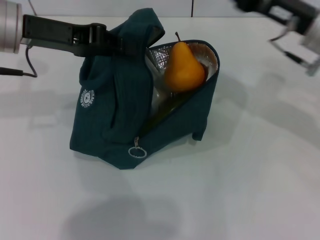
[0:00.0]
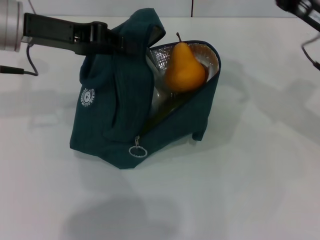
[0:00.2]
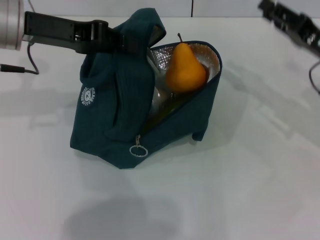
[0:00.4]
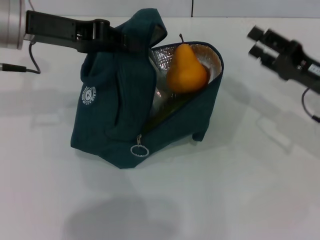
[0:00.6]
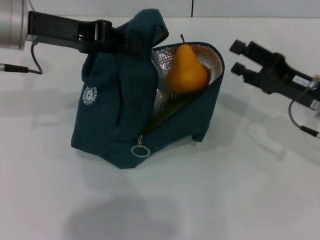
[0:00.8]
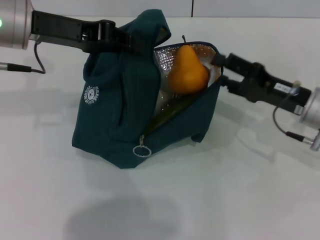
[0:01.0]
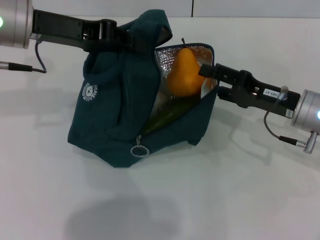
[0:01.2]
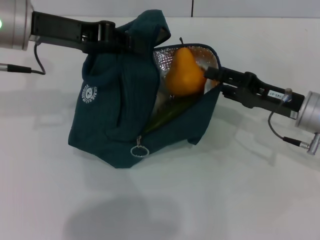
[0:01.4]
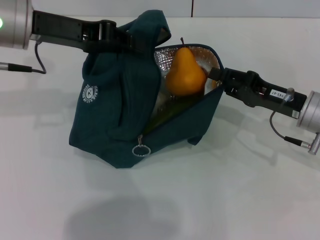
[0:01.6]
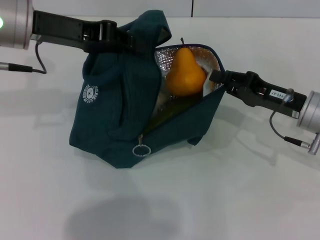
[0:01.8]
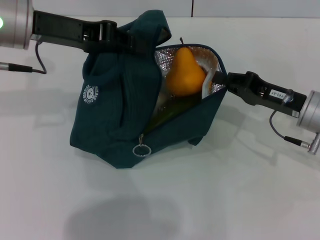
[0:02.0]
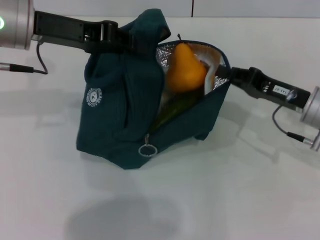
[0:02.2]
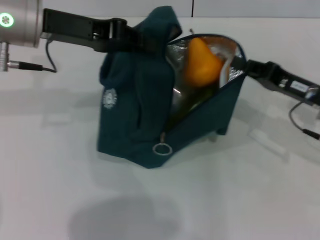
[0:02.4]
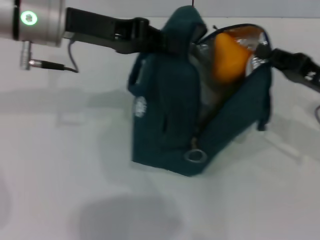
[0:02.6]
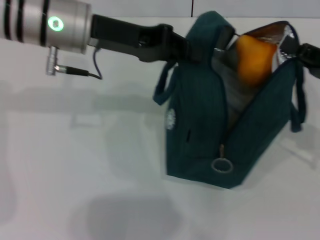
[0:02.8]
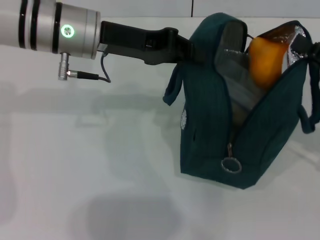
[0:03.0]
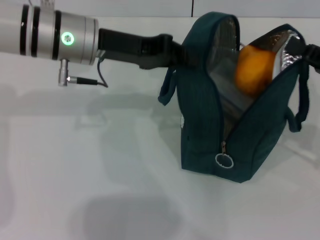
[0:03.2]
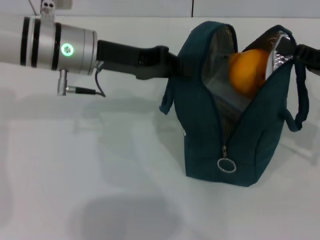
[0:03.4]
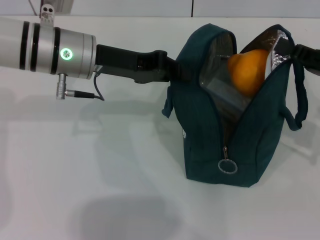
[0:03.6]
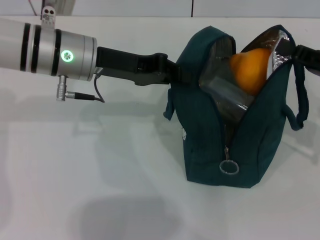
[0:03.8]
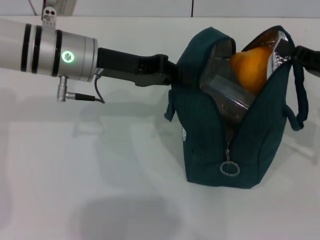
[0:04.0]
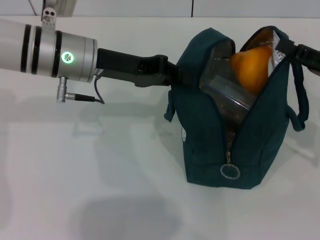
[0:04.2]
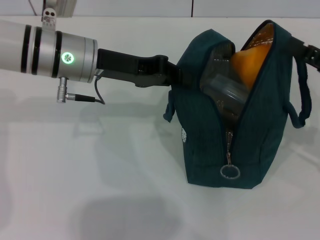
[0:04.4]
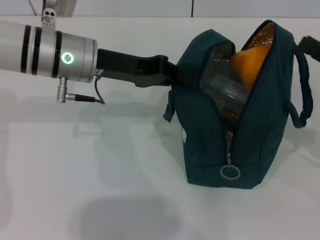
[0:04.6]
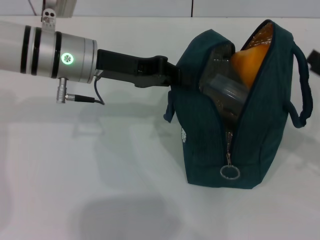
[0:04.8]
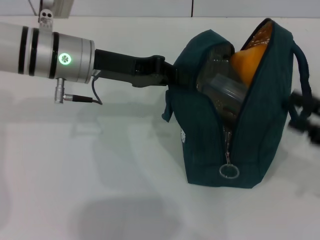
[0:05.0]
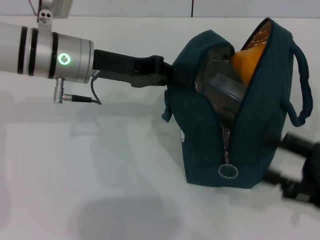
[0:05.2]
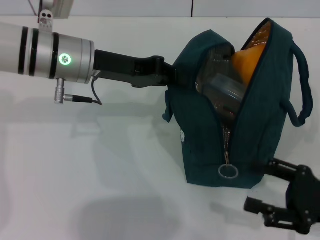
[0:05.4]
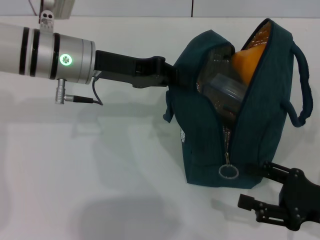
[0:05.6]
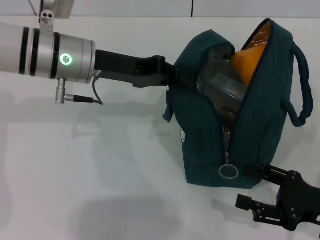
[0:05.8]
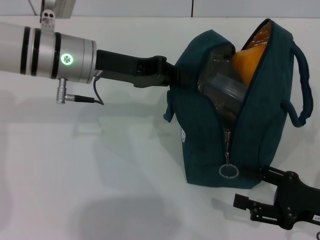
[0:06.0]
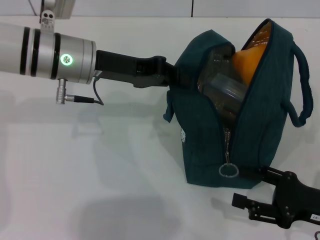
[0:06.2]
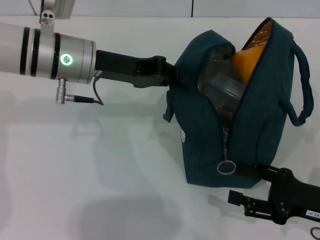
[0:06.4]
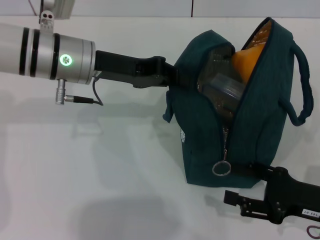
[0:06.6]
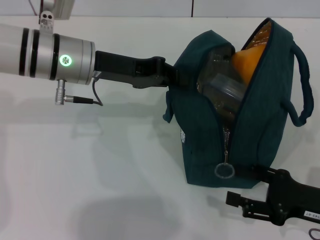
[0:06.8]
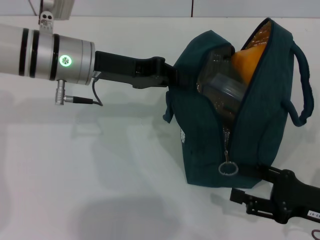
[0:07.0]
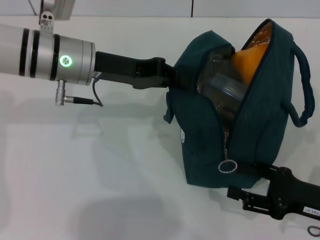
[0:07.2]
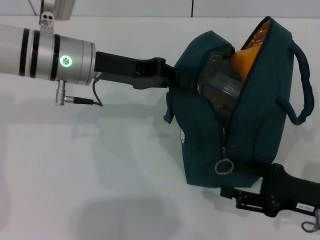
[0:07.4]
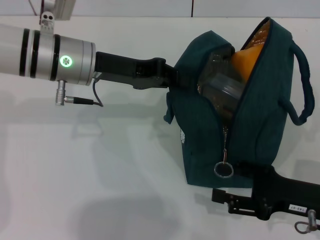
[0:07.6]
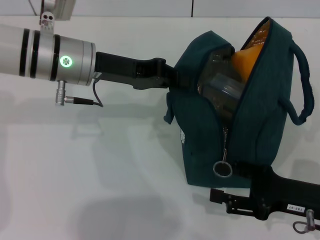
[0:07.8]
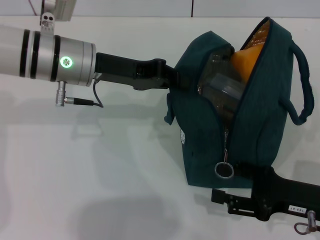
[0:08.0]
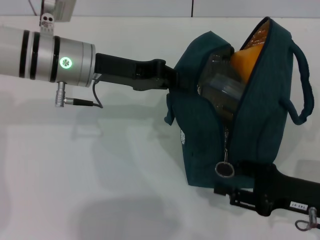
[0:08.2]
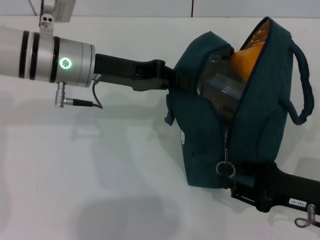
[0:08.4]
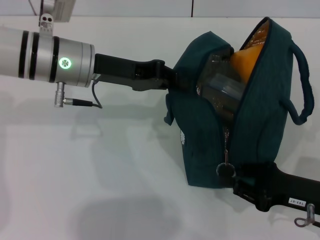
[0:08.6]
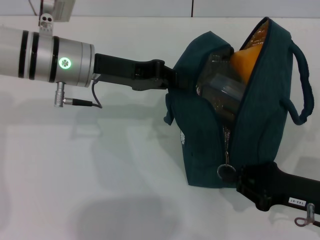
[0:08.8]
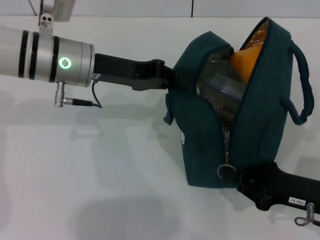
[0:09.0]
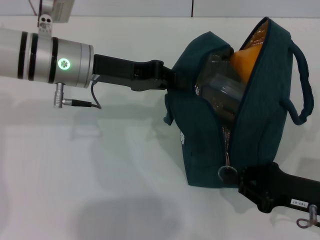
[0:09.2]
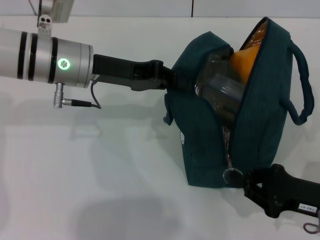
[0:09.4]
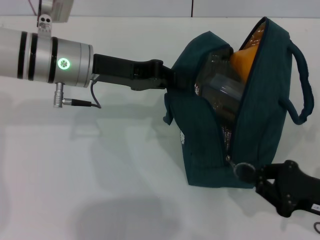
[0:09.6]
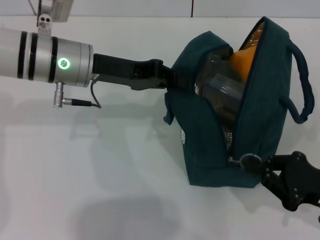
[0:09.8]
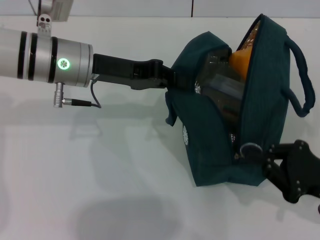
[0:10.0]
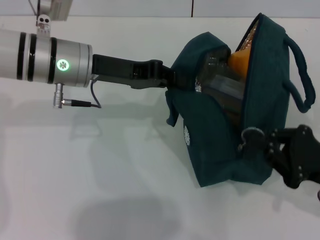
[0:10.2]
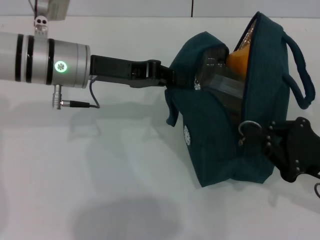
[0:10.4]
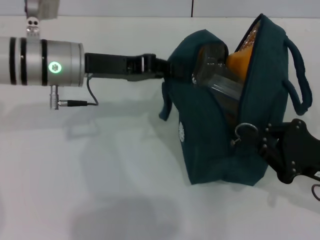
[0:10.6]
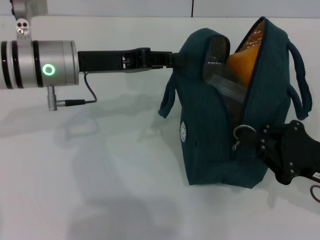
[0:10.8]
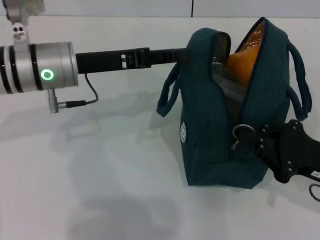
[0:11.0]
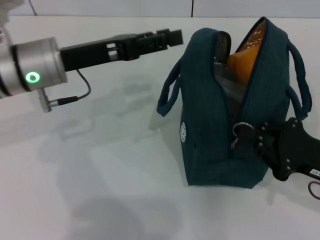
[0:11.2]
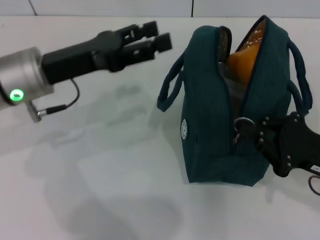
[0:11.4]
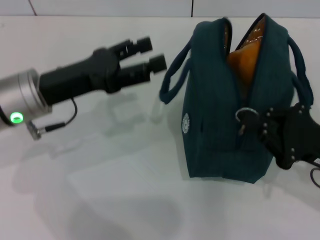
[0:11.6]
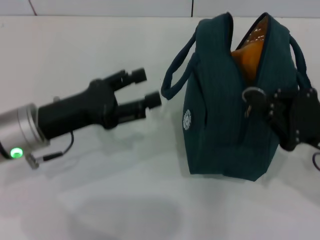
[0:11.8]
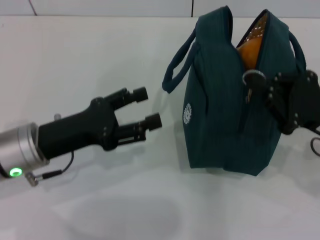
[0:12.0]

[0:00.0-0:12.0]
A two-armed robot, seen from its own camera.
Step, 0:00.2 to 0:04.8: Hold the lunch bag with your right hand.
Step, 0:05.0 to 0:11.4: Hold the lunch bag with your left hand.
0:00.0 to 0:01.6: The right gripper heads downward, covering about 10 cm, and opens its fingers.
0:01.6 to 0:03.0: The two grippers go about 10 cm to the right. The right gripper closes its fingers.
0:04.4 to 0:06.0: The right gripper moves backward and downward, some 15 cm, and opens.
0:06.0 to 0:07.6: The grippers make only small movements.
0:07.6 to 0:09.0: The right gripper closes up.
0:10.4 to 0:12.0: The left gripper heads backward, downward and to the left, covering about 15 cm, and opens up.

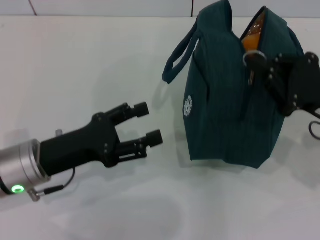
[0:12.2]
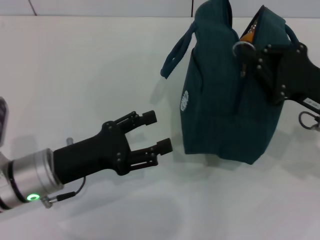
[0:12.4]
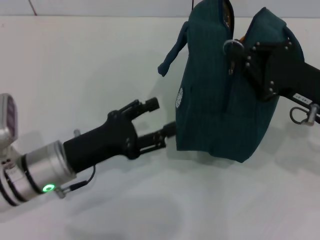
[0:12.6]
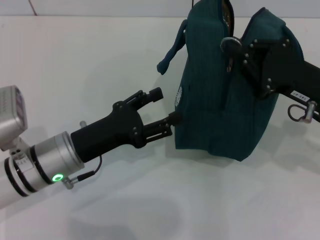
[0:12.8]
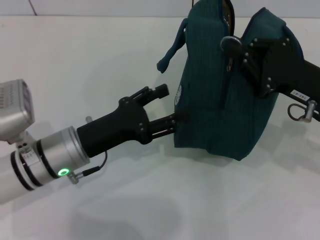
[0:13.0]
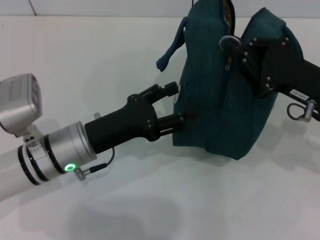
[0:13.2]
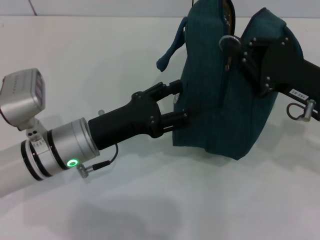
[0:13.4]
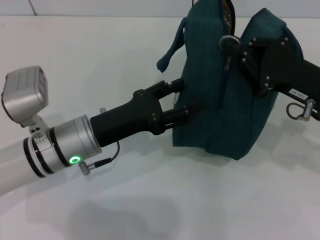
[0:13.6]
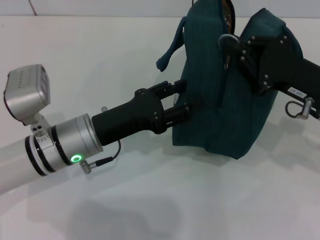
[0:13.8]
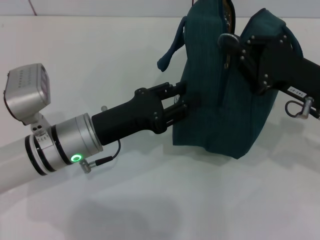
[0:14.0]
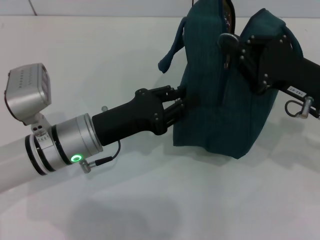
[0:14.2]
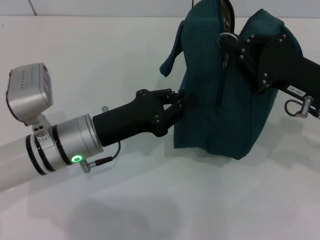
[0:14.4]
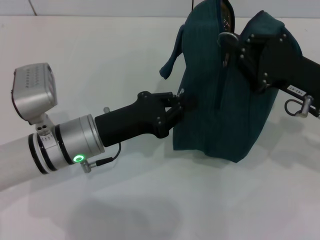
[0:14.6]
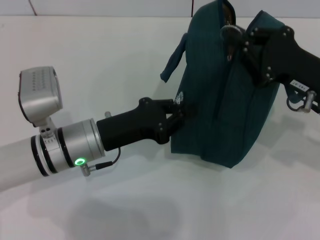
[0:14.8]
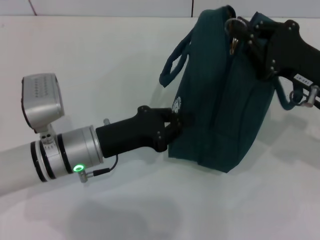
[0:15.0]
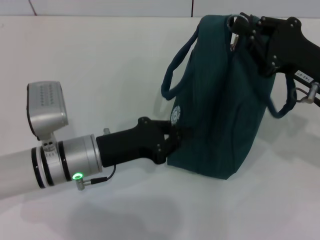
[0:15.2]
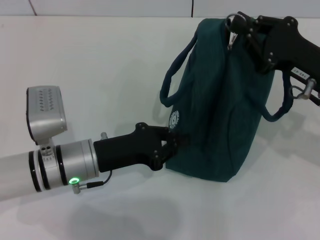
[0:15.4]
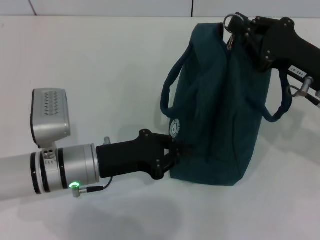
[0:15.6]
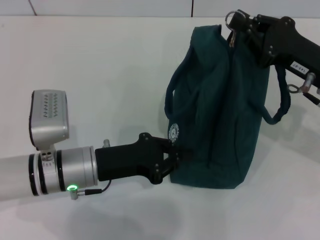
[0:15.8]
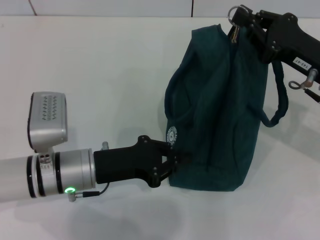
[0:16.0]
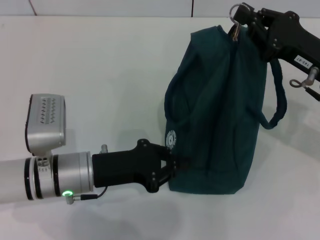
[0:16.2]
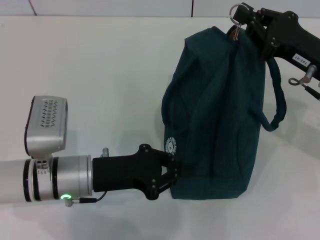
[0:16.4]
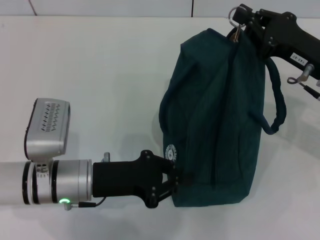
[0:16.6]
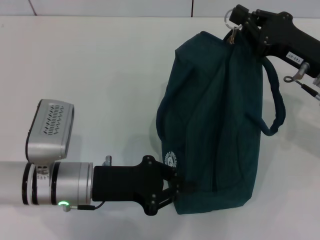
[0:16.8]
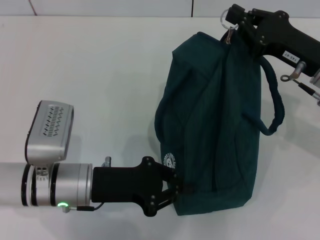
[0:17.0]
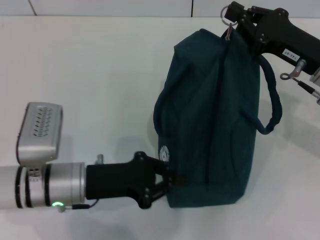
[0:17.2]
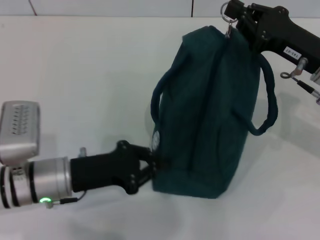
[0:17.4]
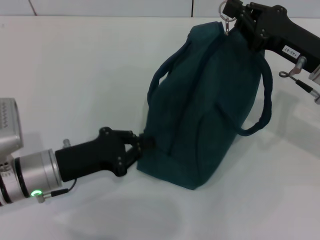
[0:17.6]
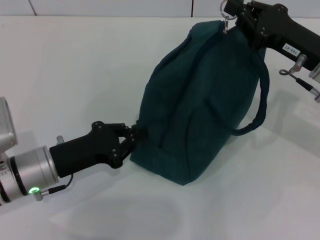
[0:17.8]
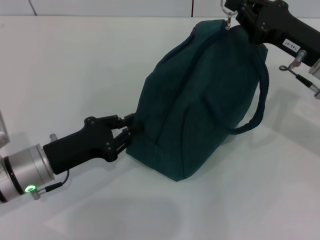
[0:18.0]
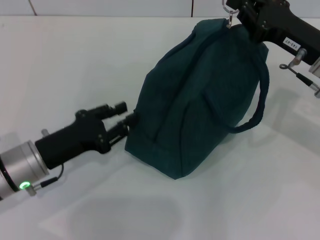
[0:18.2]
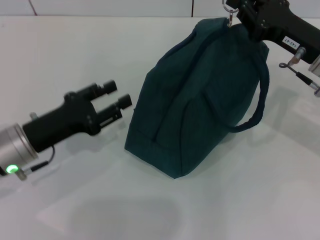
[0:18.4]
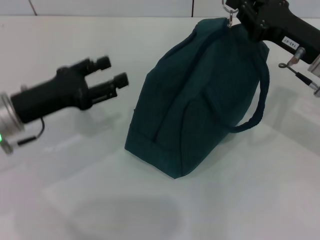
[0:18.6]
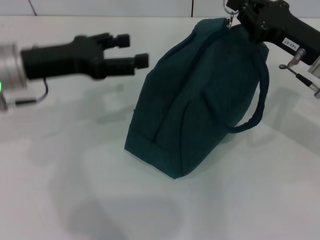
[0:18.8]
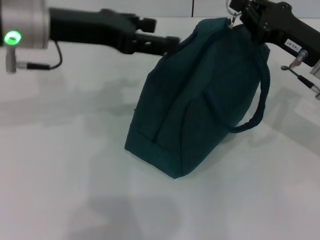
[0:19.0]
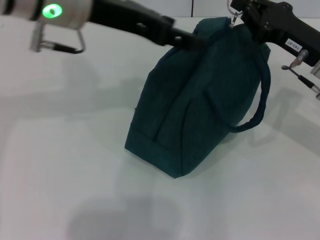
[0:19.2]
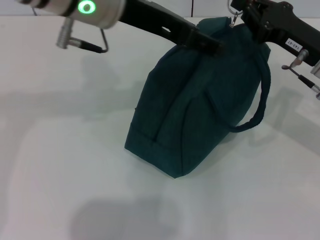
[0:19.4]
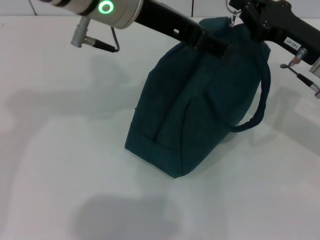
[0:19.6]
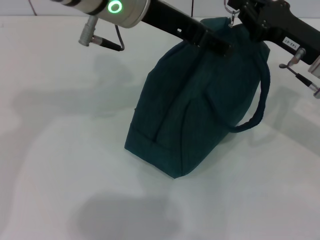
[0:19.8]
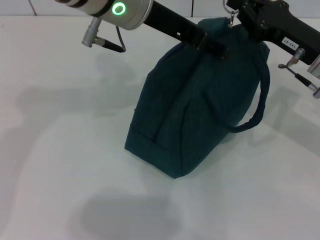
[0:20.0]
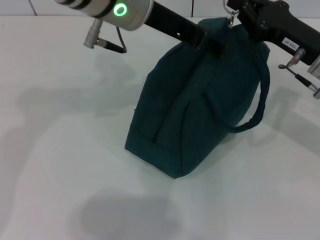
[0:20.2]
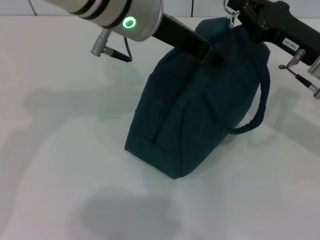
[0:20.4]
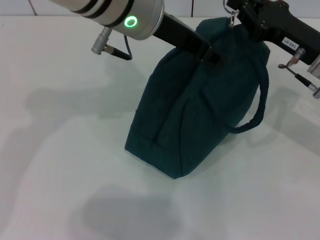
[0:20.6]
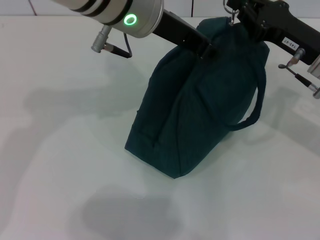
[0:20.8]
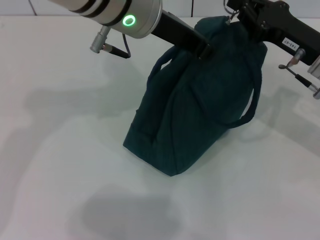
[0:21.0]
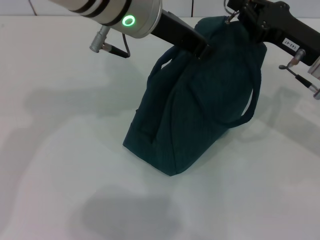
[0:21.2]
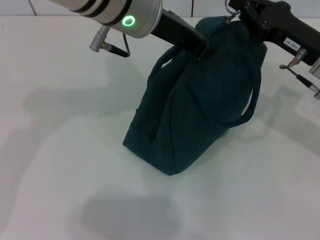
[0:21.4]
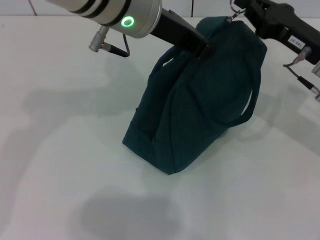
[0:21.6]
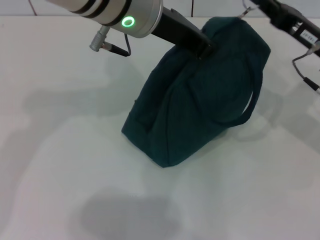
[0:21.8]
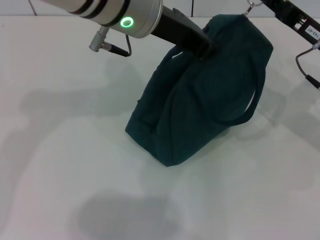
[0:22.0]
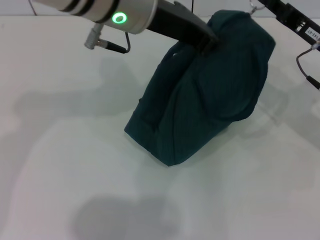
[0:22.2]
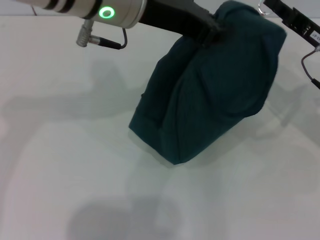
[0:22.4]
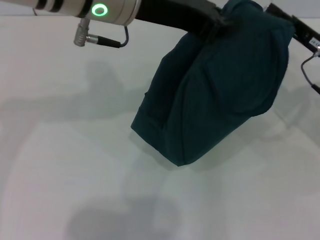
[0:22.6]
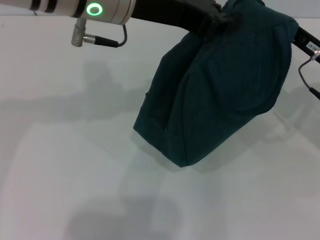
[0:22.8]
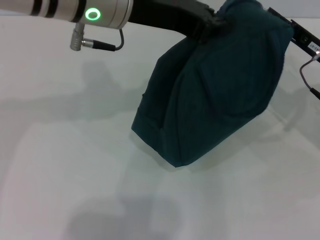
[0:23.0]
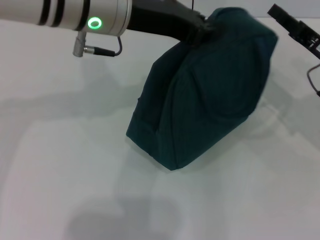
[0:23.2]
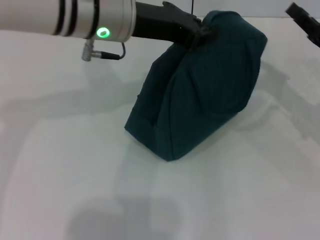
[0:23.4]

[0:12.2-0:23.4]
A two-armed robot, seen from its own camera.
Step, 0:12.2 to 0:23.0: Zip up the lunch bag with your right hand.
0:12.2 to 0:13.8: The left gripper moves to the right, roughly 5 cm.
0:13.8 to 0:15.4: The left gripper closes.
0:17.0 to 0:18.6: The left gripper moves to the left and upward, some 10 cm, and opens up.
0:18.6 to 0:20.2: The left gripper goes some 25 cm to the right, upward and forward.
0:20.2 to 0:21.8: The left gripper closes its fingers.
0:21.8 to 0:23.4: The right gripper changes place by some 5 cm; the left gripper changes place by roughly 5 cm.
